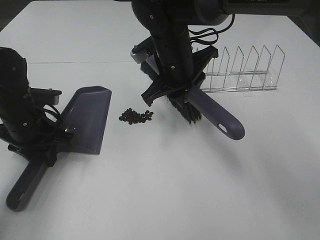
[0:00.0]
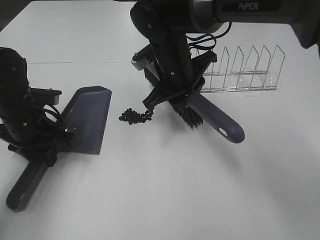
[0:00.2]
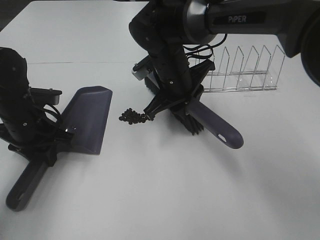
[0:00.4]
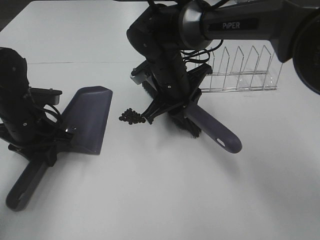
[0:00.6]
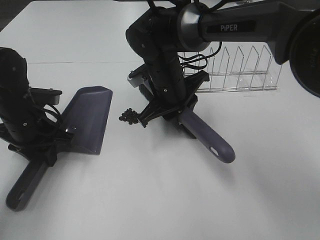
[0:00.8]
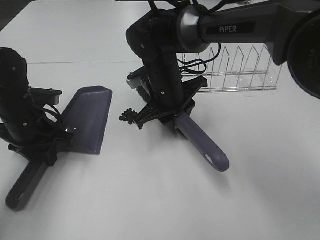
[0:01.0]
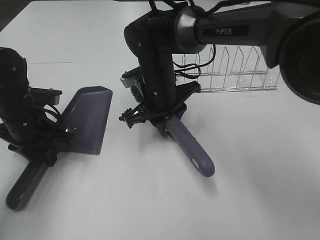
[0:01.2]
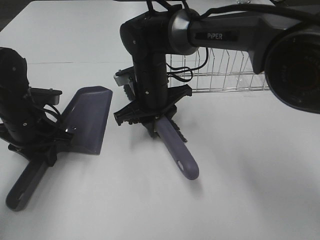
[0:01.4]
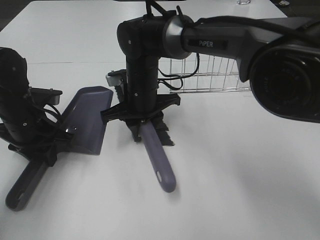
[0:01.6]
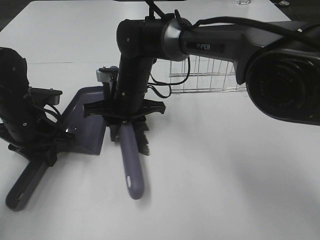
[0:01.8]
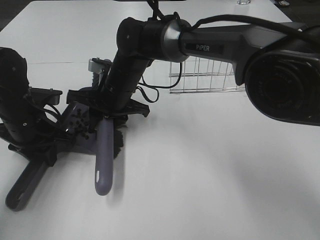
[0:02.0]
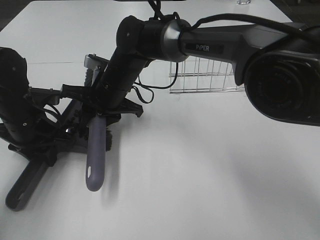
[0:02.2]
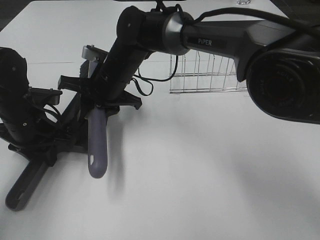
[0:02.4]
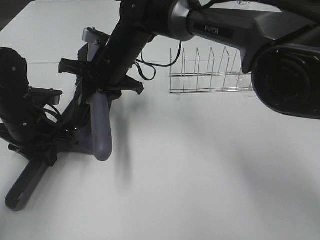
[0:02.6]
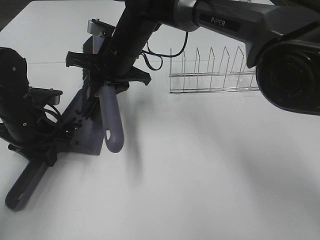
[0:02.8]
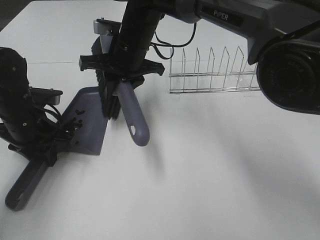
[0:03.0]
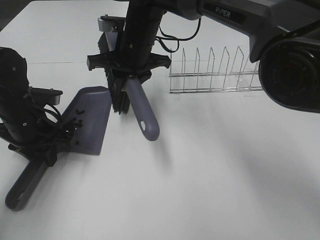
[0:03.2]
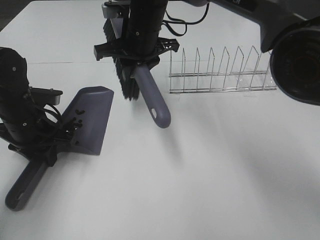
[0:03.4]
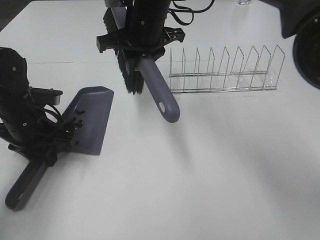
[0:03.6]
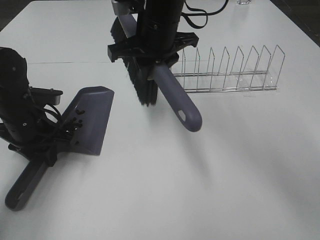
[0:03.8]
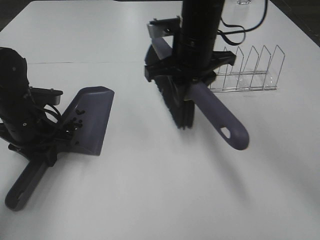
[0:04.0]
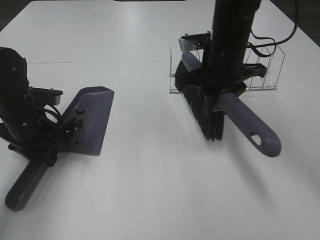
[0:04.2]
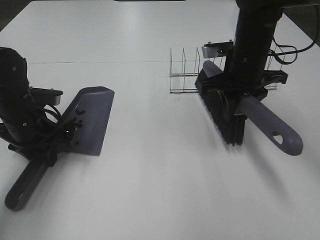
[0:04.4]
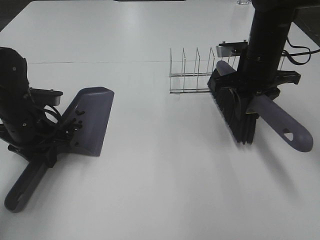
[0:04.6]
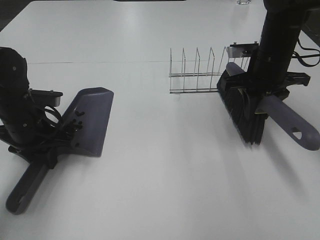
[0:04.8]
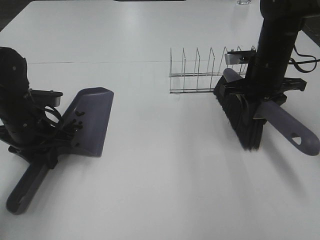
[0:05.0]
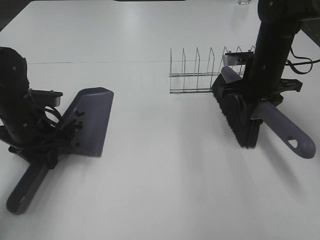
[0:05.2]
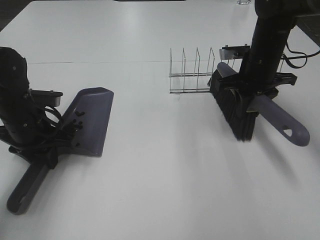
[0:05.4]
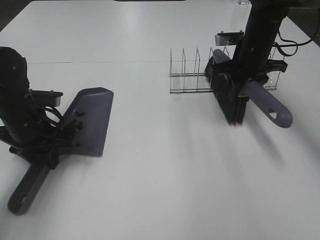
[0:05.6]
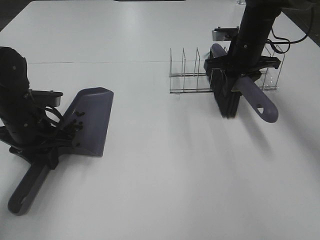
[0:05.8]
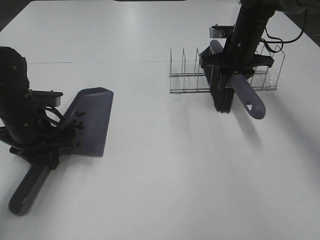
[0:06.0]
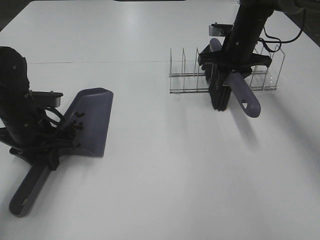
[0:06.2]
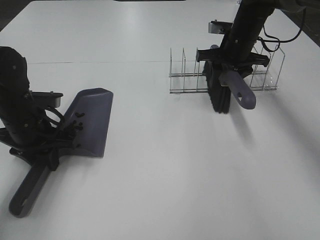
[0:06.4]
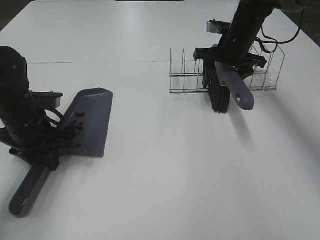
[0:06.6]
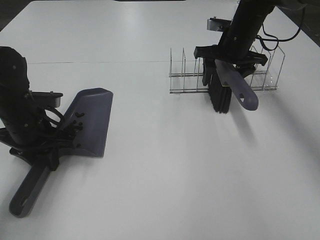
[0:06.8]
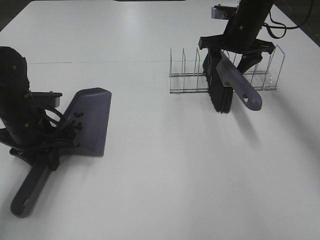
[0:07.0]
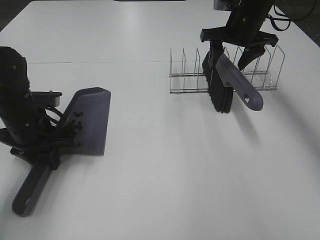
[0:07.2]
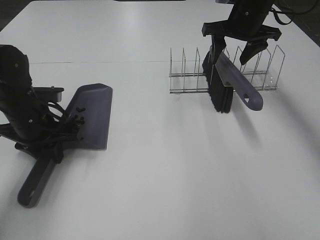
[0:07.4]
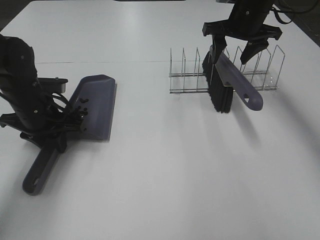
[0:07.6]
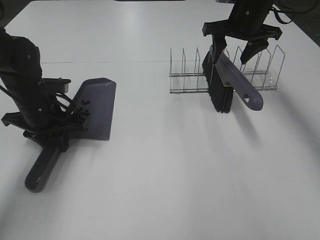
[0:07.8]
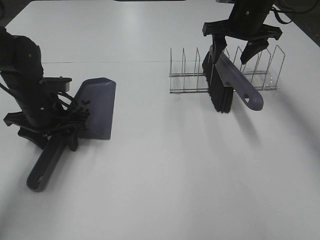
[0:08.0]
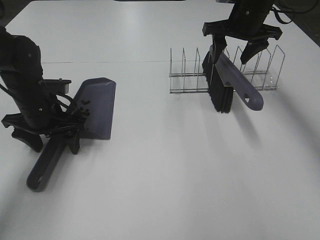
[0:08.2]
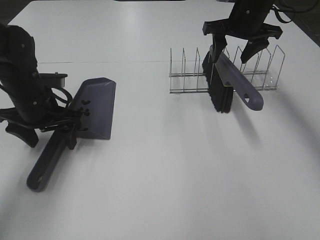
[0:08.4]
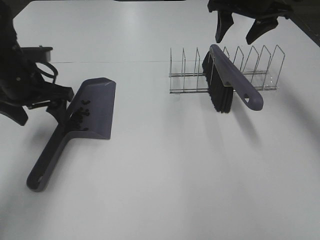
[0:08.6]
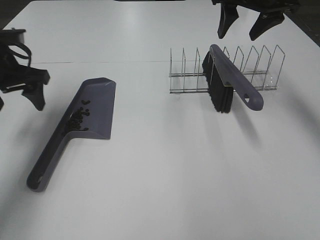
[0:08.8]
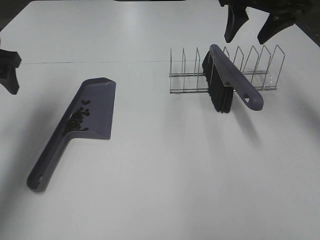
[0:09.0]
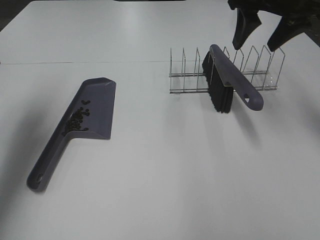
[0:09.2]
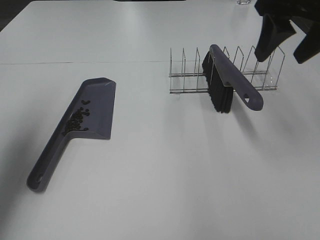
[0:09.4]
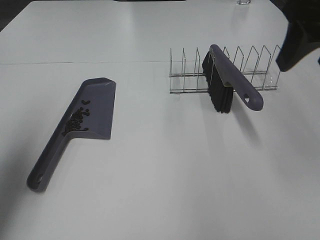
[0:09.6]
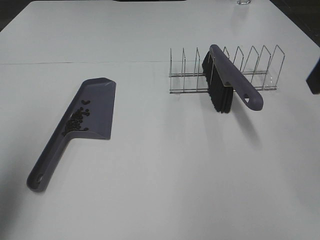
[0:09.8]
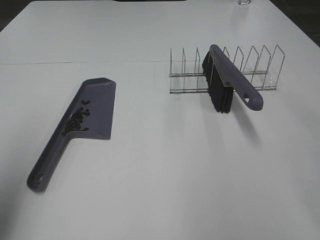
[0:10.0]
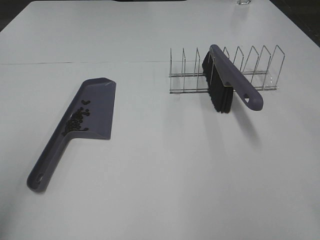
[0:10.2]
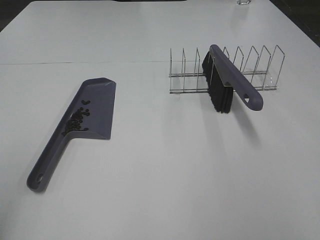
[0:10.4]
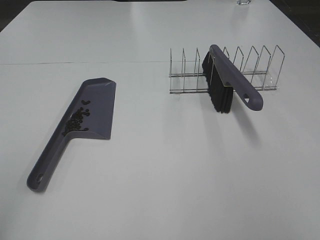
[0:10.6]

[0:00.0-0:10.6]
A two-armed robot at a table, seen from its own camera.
Task of the whole recording: Sweep Coffee Bean.
Step, 0:00.0 to 0:02.6: Right hand:sweep the coffee beans into the dustpan.
Step, 0:02.8 to 0:07.0: Right hand:place the broom on the rack.
Step, 0:07.2 to 0:08.0: Left hand:place the dustpan on the table.
0:00.0 to 0:01.6: The right gripper travels downward and to the left by approximately 10 cm.
0:01.6 to 0:03.0: The right gripper moves upward, approximately 10 cm.
0:03.0 to 0:04.6: The right gripper goes approximately 25 cm to the right.
0:04.6 to 0:06.0: The right gripper is displaced forward by some 10 cm.
0:06.0 to 0:07.6: The right gripper moves upward, about 5 cm, and opens its fingers.
0:07.6 to 0:09.0: The right gripper shifts some 10 cm upward and backward. The left gripper goes approximately 15 cm upward and to the left, and opens up.
0:09.0 to 0:10.6: Both grippers move backward, about 35 cm.
